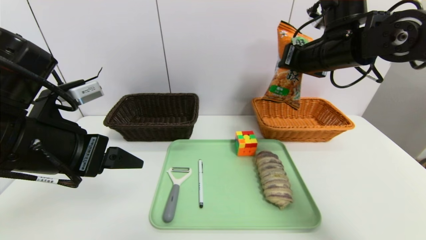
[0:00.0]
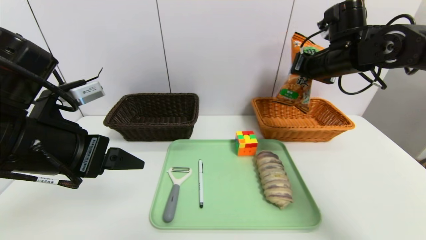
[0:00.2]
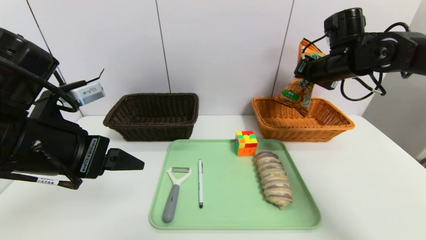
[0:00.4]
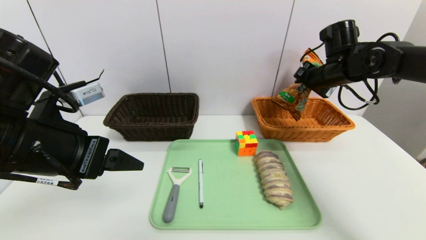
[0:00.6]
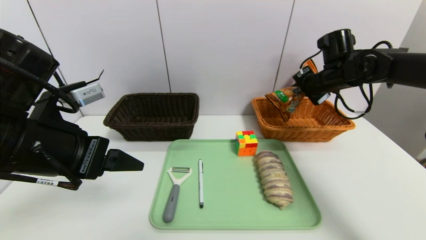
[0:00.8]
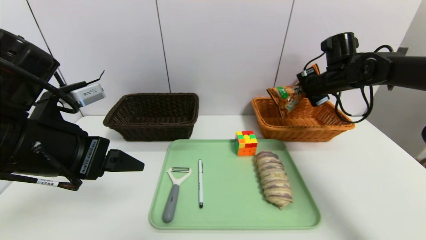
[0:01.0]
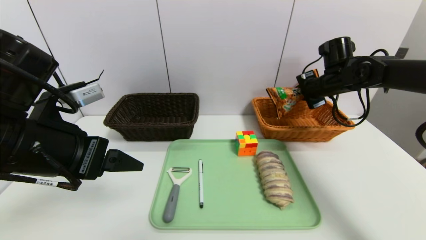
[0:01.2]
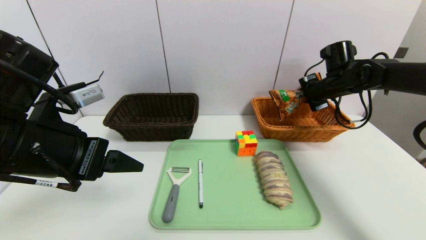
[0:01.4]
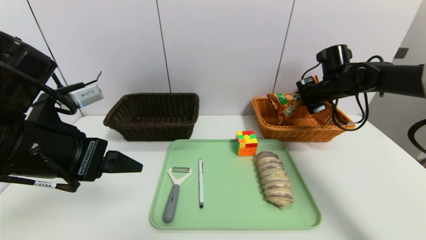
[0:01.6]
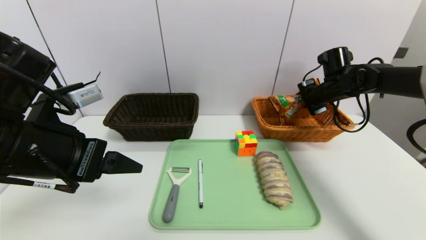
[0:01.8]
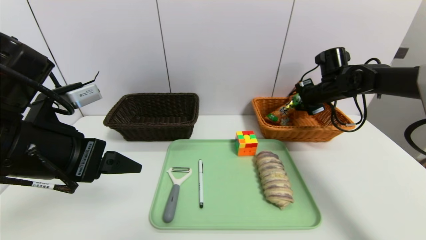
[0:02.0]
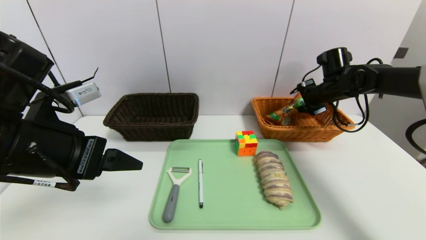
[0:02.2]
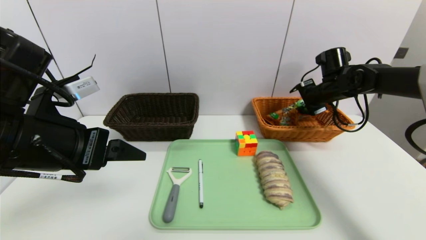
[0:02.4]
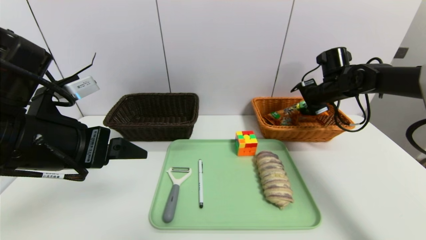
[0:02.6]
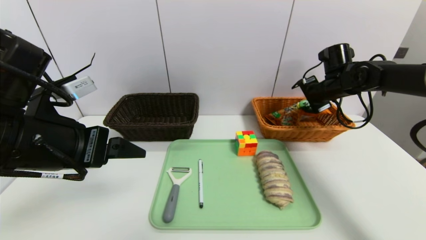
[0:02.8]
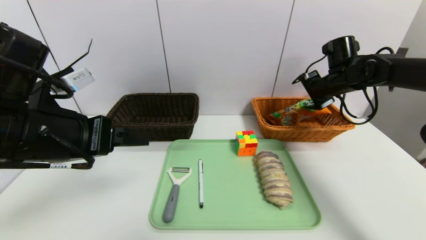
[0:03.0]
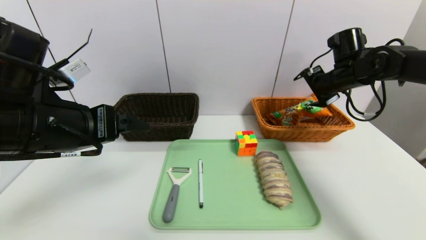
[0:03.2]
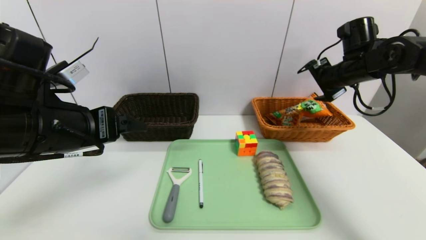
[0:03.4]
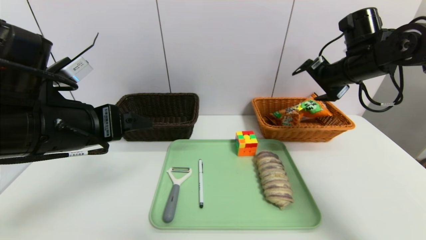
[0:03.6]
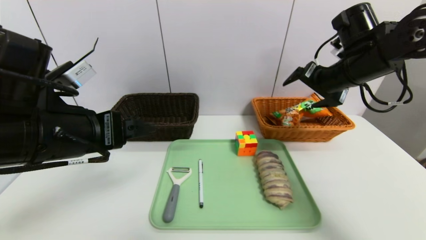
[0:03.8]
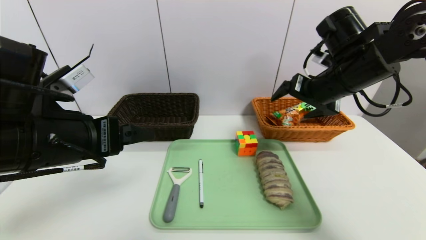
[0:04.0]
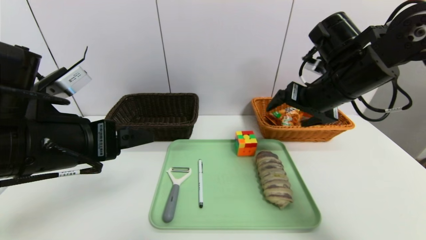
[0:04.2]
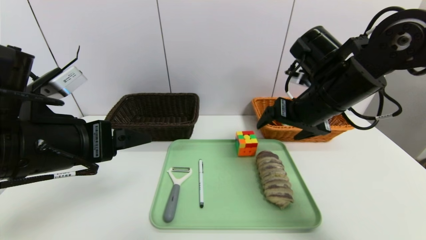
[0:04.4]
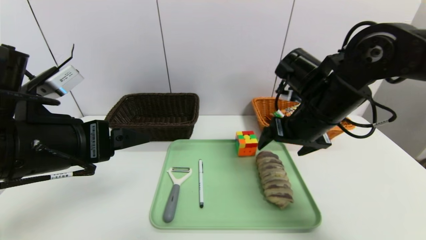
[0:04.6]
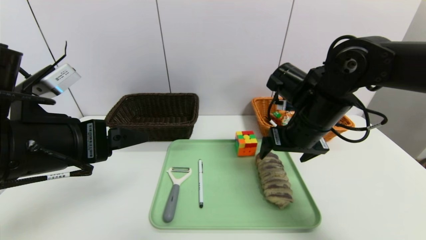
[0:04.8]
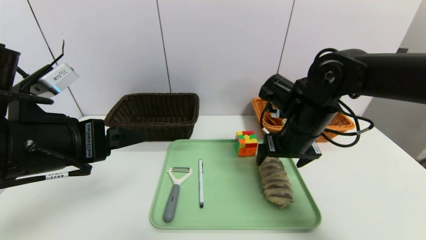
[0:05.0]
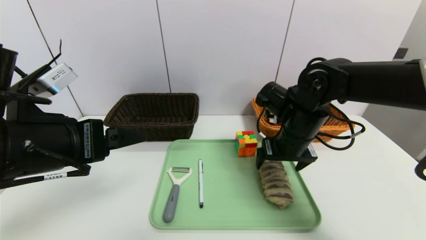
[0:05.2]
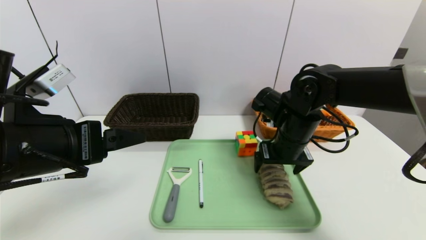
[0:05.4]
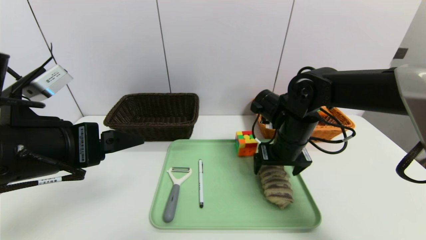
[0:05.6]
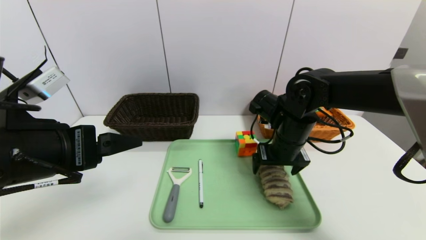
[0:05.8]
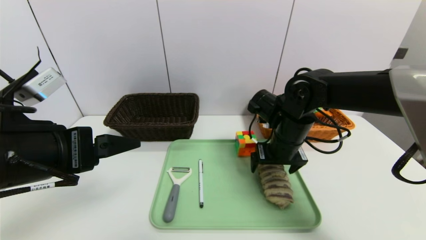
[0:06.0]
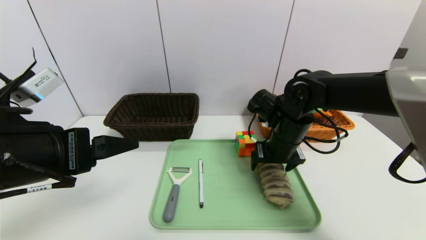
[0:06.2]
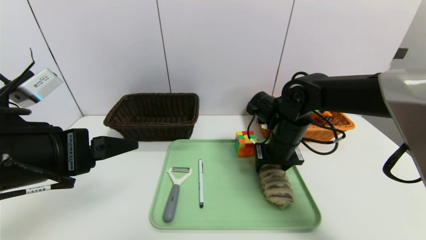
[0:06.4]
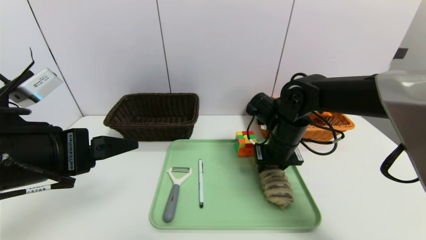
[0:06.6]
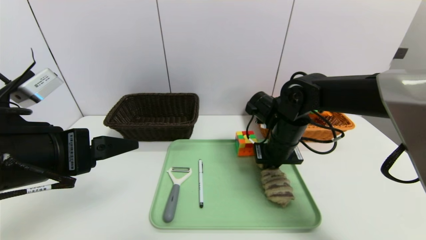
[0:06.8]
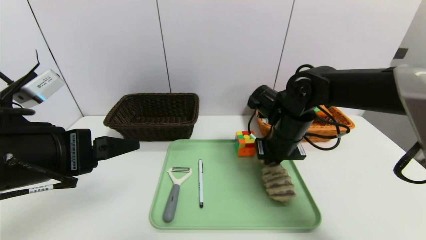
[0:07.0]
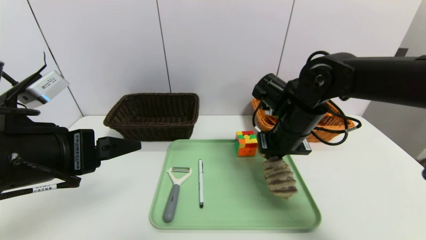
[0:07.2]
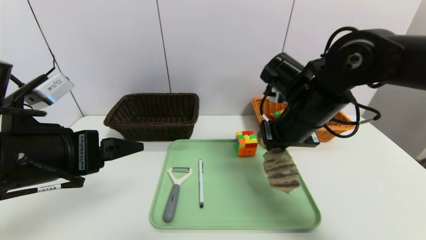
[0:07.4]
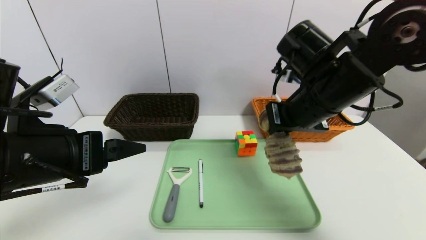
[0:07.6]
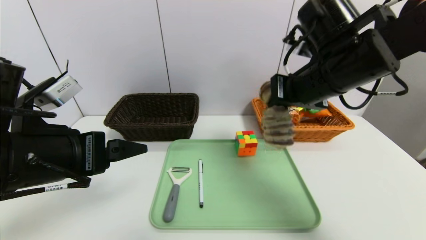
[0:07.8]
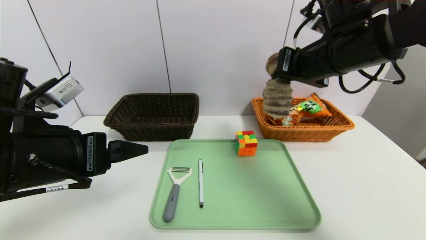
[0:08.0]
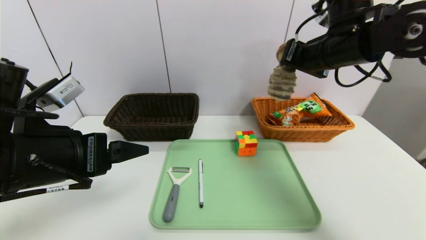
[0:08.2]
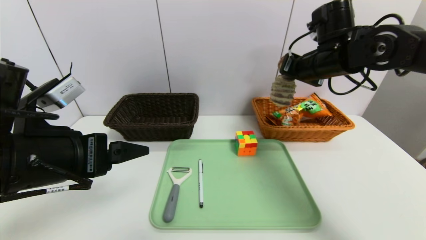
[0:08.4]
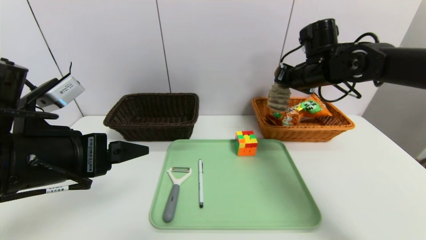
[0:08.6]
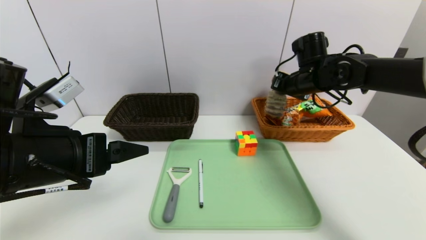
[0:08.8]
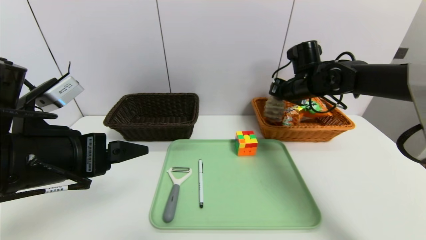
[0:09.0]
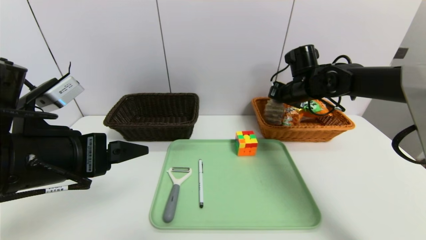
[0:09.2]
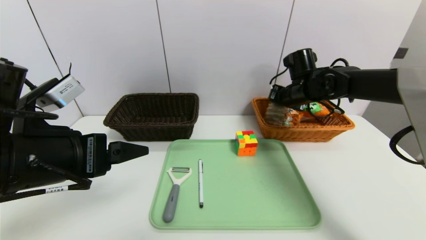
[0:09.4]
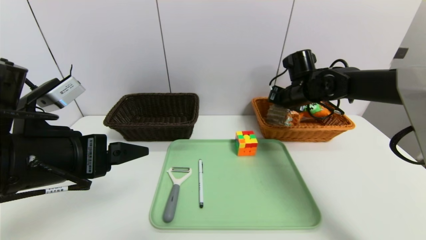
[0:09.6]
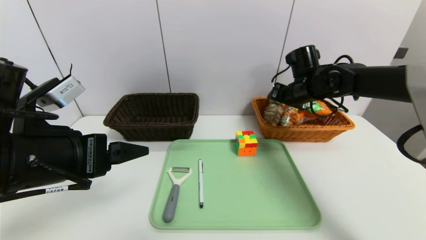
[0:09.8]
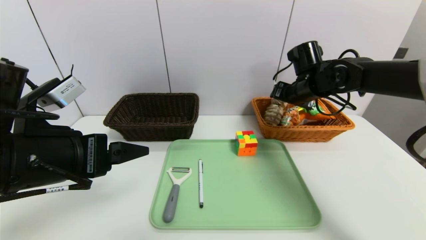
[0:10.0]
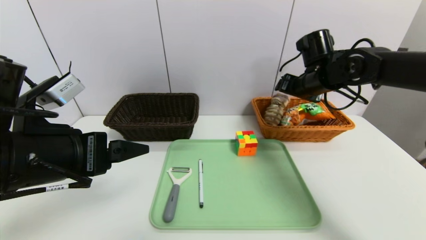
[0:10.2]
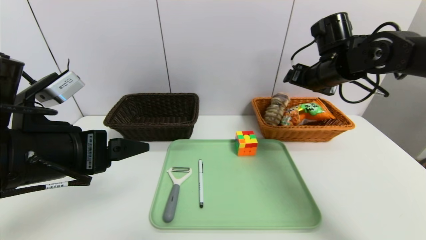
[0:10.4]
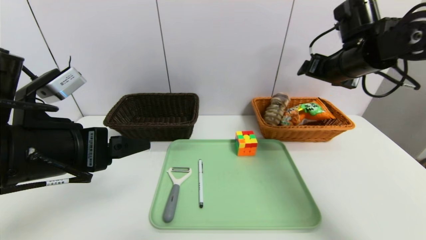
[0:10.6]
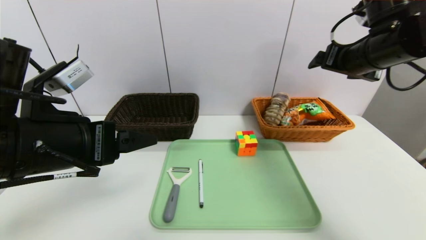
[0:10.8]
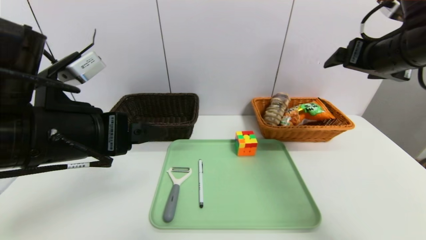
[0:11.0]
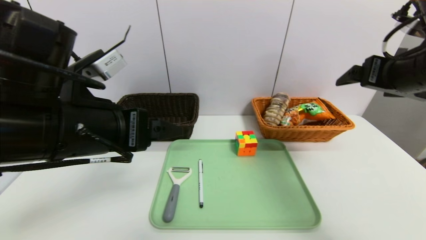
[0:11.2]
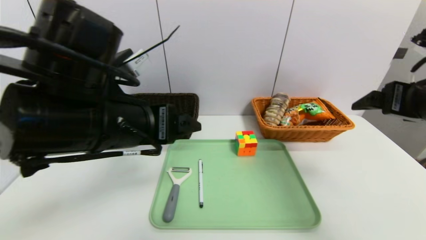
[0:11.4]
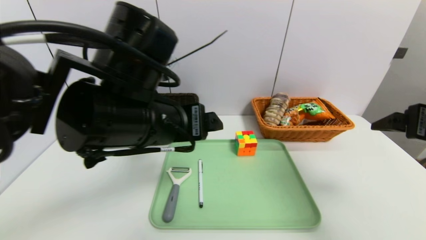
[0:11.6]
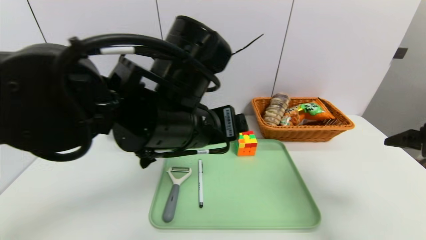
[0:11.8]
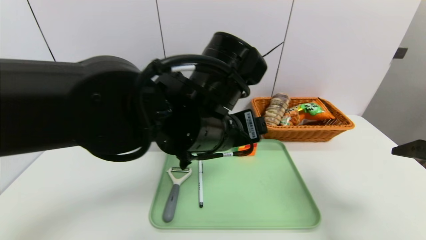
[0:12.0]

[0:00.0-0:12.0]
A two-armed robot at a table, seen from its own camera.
Task of the whole recording: place the food in the right basket with the right gripper, and place the non food items in the left basket with the left gripper.
Step, 0:00.0 to 0:03.2: Grasp the cookie and put it in the right basket.
Step, 0:03.4 to 0:10.2: Grasp the long bread and put it in the right basket.
0:00.0 to 0:01.6: The right gripper is displaced downward, forward and to the right by some 15 cm.
0:01.6 to 0:03.0: The right gripper opens its fingers.
0:03.0 to 0:04.4: The right gripper is displaced backward and to the left by some 20 cm.
0:04.4 to 0:06.0: The right gripper heads downward, covering approximately 10 cm.
0:06.0 to 0:07.6: The right gripper moves upward and backward, roughly 15 cm, and closes its fingers.
0:07.6 to 0:09.0: The right gripper goes some 15 cm forward.
0:09.0 to 0:10.4: The right gripper heads upward and backward, covering roughly 10 cm, and opens its fingers.
0:10.4 to 0:12.0: The right gripper travels backward by roughly 25 cm. The left gripper moves to the right, roughly 20 cm.

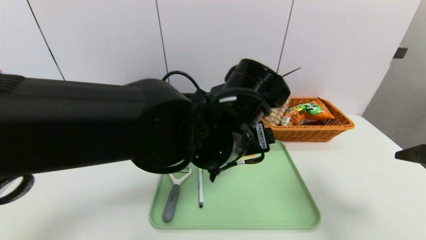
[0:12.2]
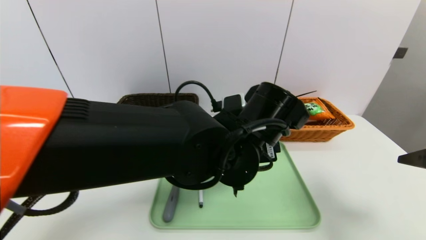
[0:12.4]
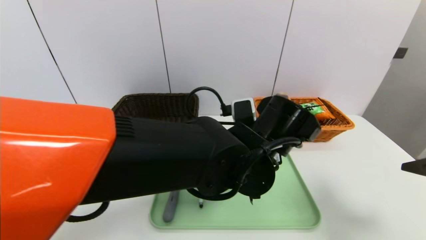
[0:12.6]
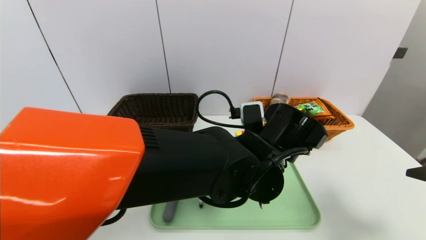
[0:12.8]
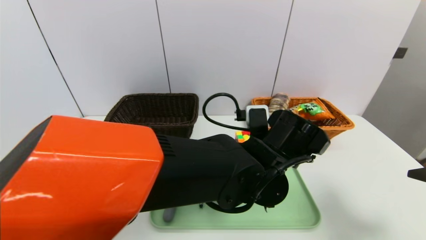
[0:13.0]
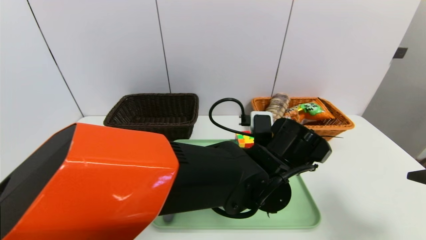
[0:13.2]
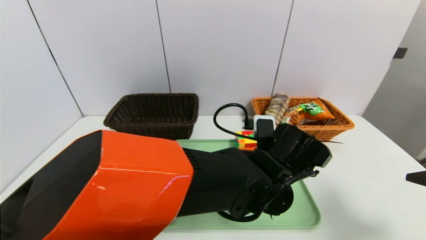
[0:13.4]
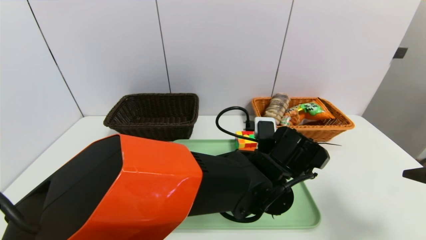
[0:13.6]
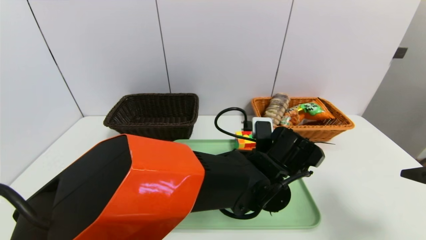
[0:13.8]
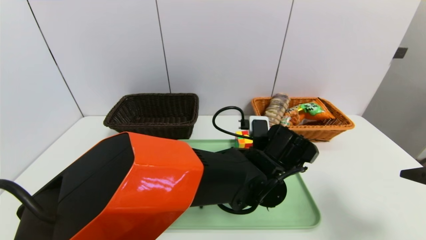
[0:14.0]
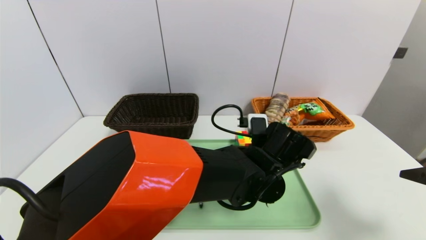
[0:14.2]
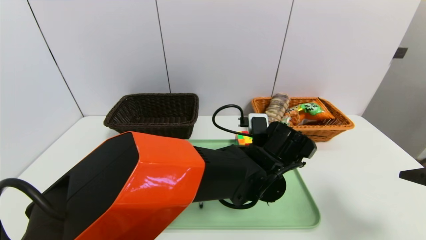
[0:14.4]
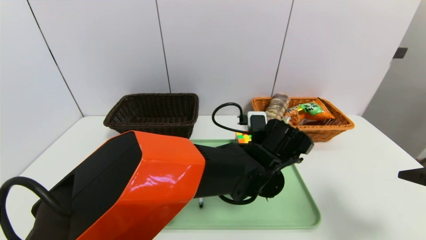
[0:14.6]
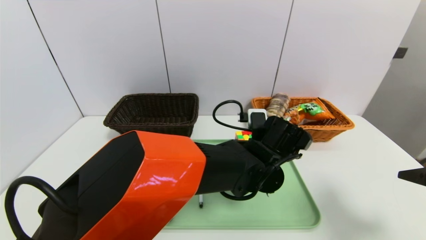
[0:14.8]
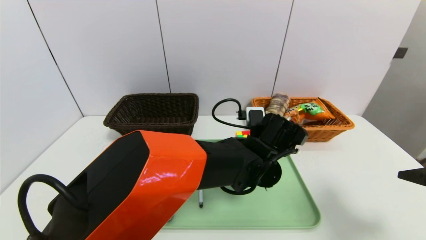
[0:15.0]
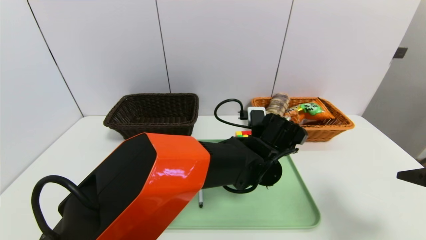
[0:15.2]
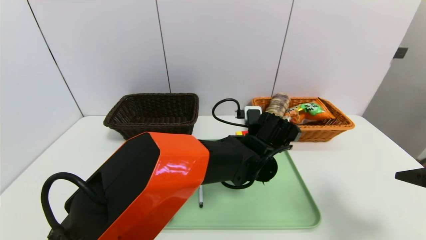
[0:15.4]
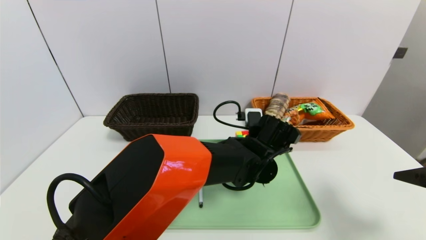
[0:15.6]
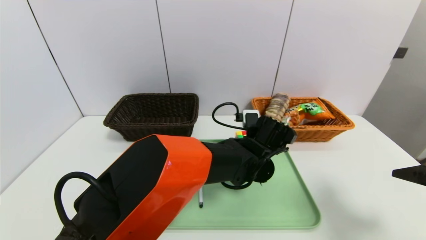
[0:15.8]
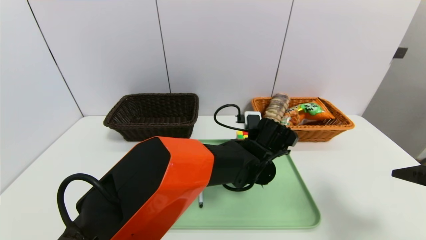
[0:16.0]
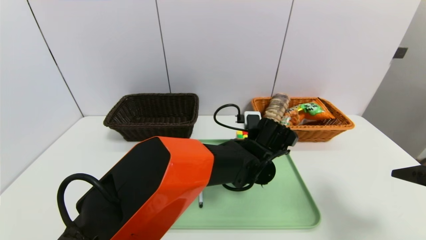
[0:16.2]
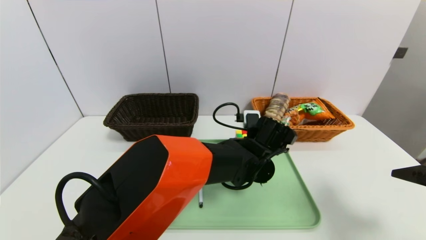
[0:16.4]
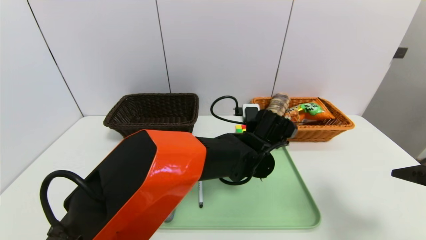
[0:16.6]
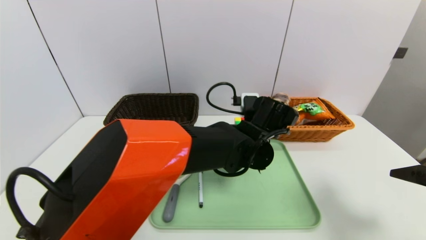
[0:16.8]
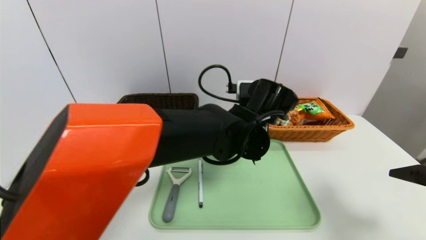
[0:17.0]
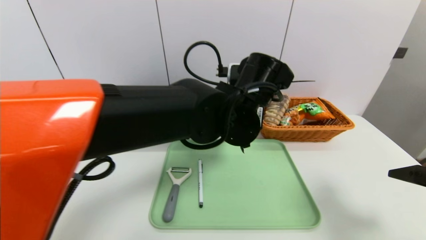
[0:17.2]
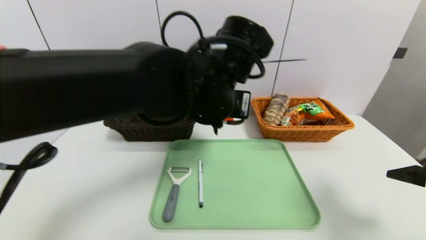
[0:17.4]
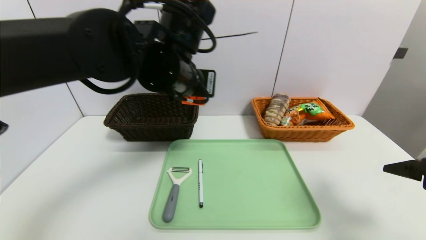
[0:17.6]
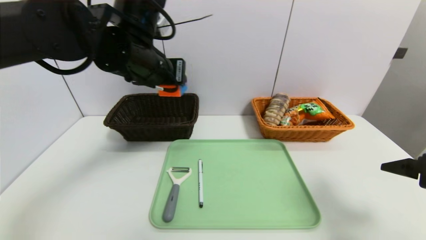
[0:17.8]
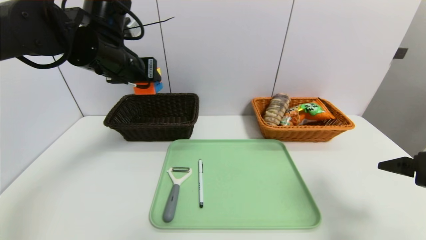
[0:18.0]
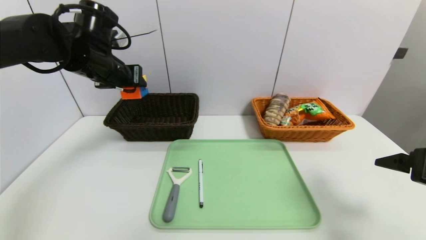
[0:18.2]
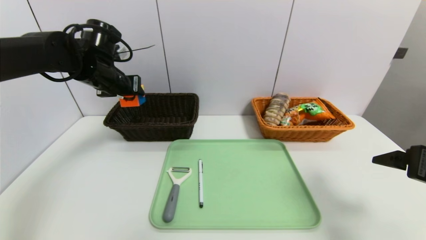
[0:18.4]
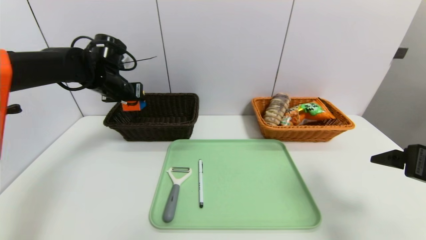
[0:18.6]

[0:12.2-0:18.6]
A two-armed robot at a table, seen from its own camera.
Task of the whole recording: place the food in the right basket with the right gripper, and place the non food items in the left basket with the left gripper.
0:12.2 to 0:13.8: The left gripper shifts approximately 15 cm downward and to the right.
0:13.8 to 0:15.4: The left gripper travels forward by approximately 5 cm.
0:15.4 to 0:17.0: The left gripper is displaced upward by roughly 10 cm, and closes its fingers.
0:17.0 to 0:18.6: The left gripper travels to the left and forward by some 35 cm.
